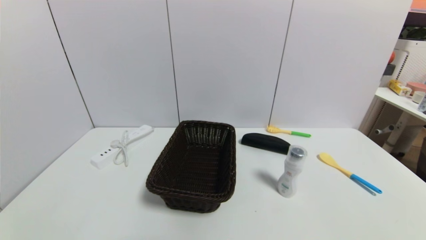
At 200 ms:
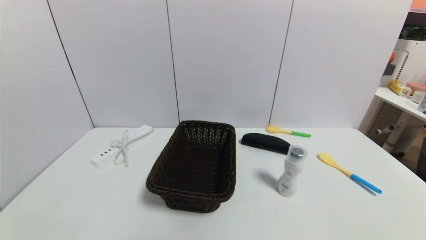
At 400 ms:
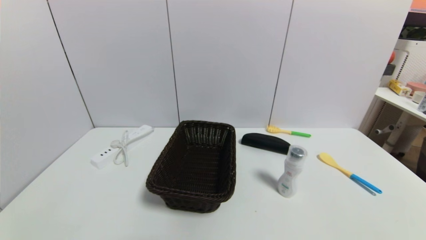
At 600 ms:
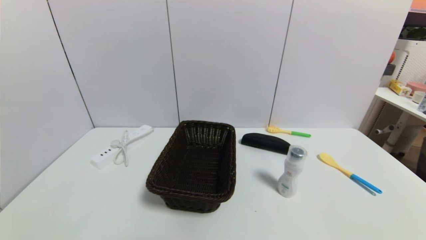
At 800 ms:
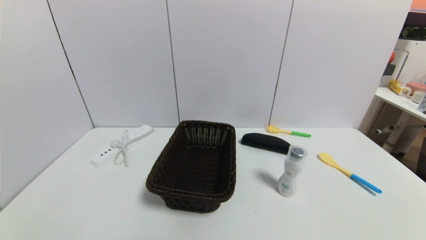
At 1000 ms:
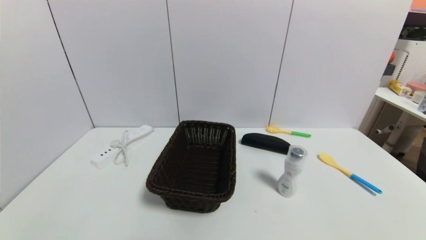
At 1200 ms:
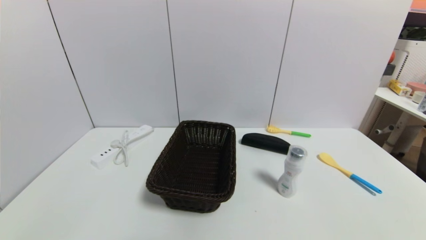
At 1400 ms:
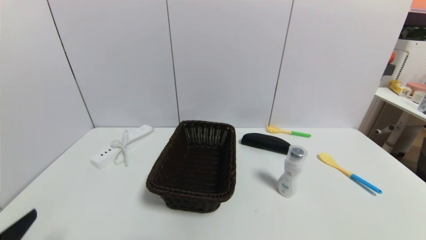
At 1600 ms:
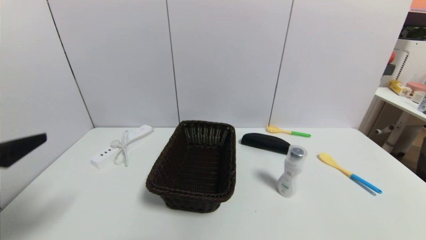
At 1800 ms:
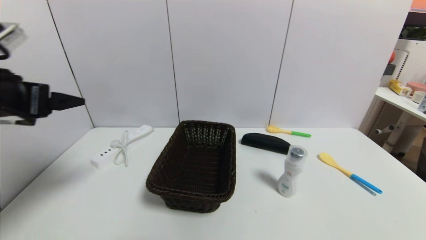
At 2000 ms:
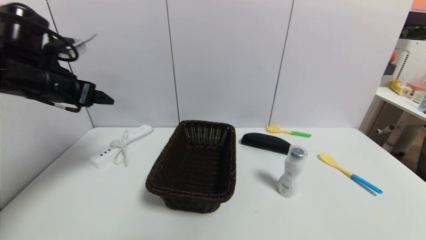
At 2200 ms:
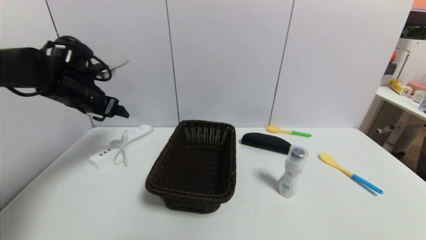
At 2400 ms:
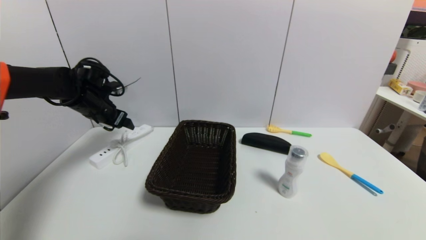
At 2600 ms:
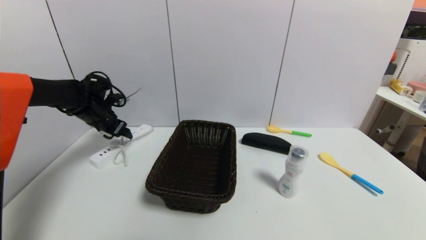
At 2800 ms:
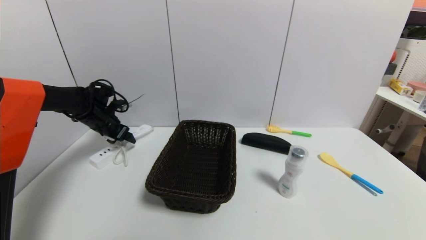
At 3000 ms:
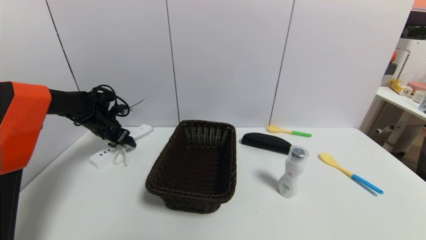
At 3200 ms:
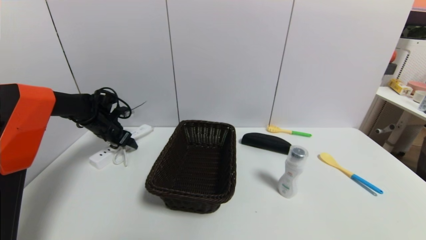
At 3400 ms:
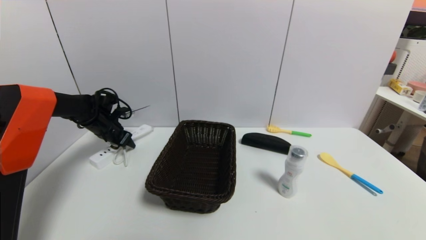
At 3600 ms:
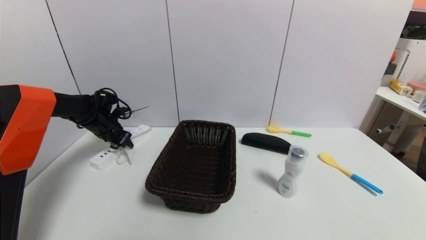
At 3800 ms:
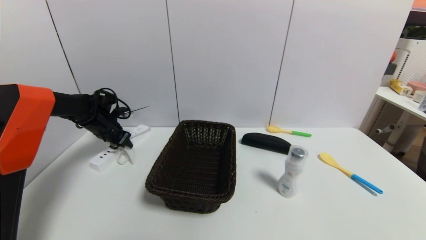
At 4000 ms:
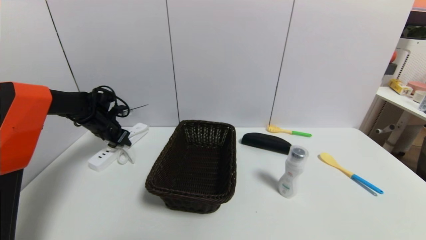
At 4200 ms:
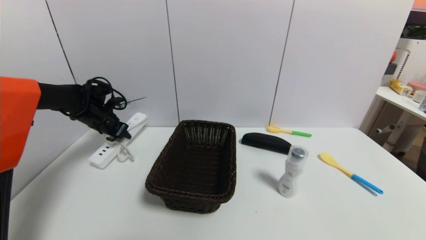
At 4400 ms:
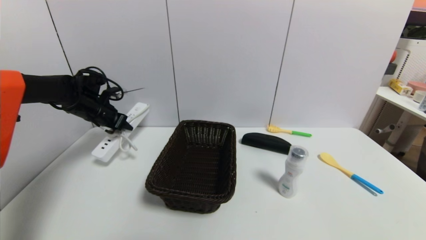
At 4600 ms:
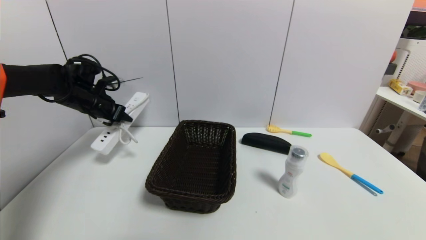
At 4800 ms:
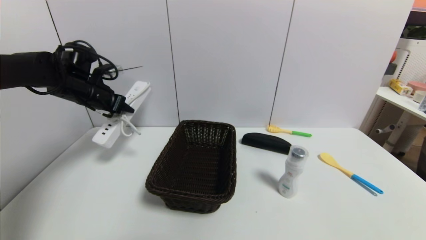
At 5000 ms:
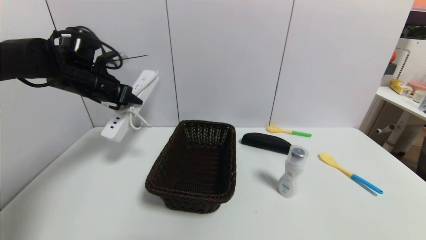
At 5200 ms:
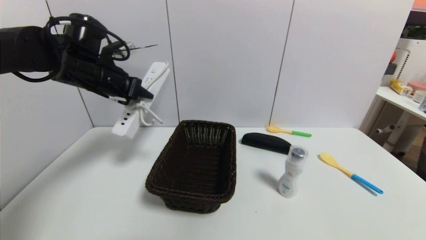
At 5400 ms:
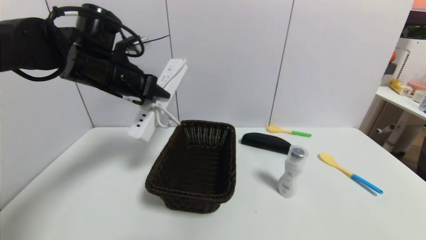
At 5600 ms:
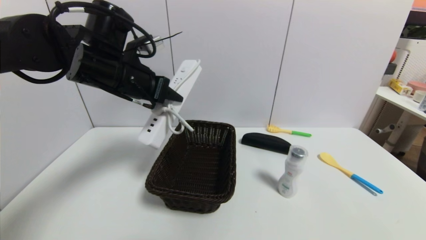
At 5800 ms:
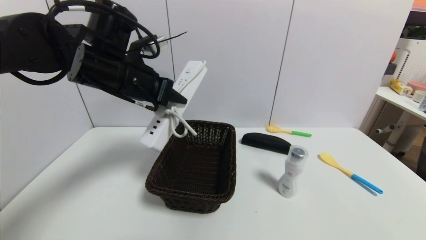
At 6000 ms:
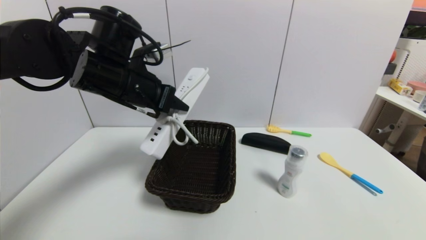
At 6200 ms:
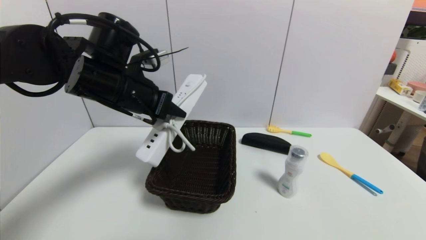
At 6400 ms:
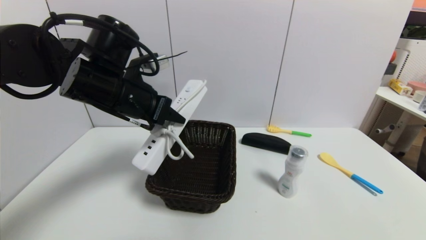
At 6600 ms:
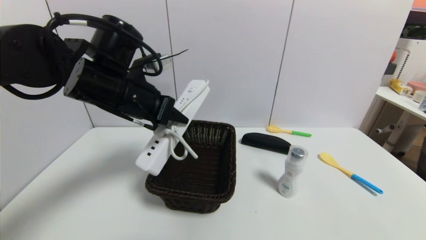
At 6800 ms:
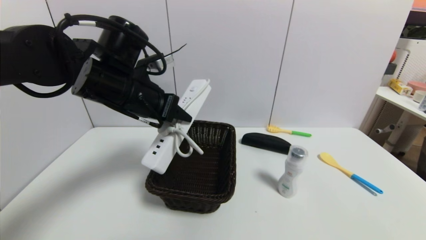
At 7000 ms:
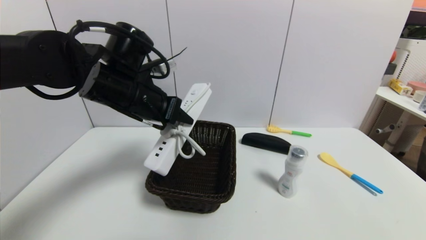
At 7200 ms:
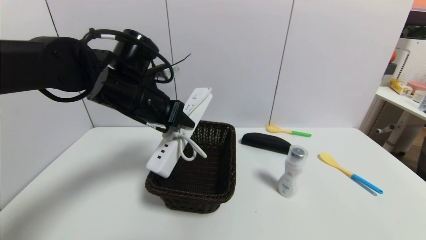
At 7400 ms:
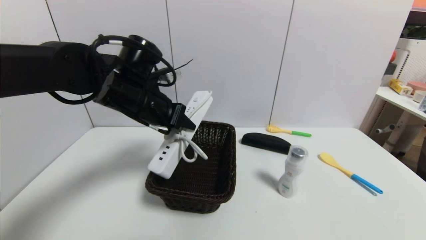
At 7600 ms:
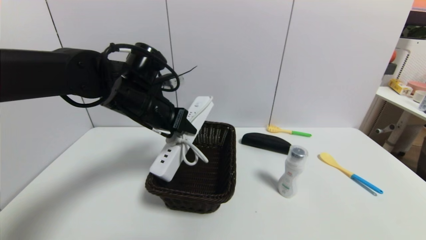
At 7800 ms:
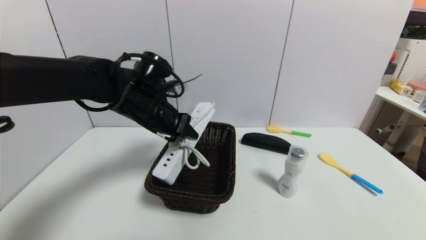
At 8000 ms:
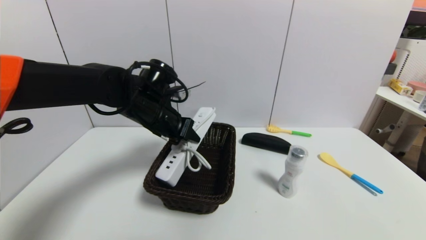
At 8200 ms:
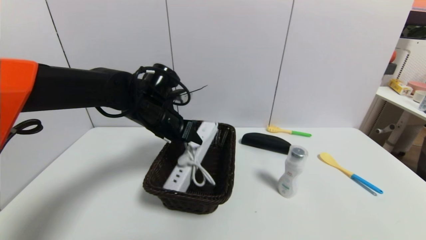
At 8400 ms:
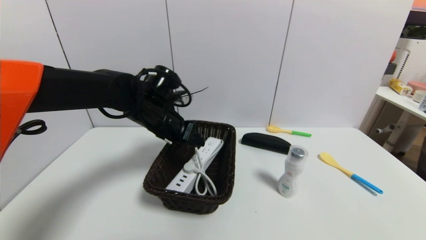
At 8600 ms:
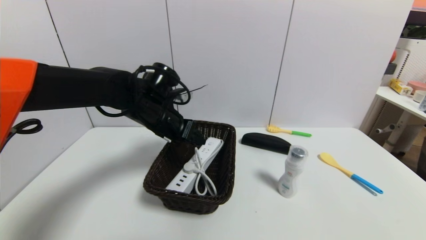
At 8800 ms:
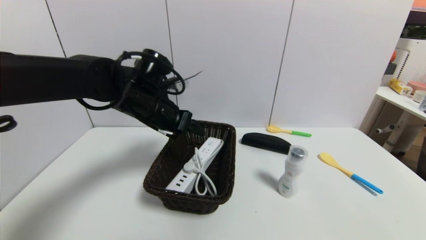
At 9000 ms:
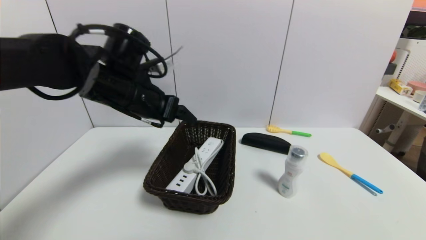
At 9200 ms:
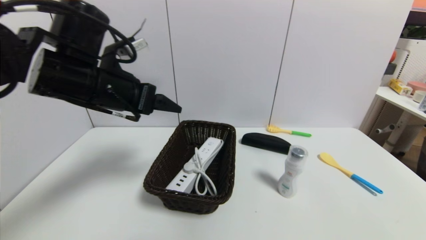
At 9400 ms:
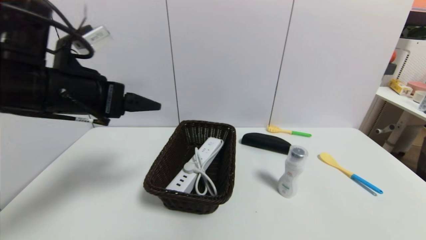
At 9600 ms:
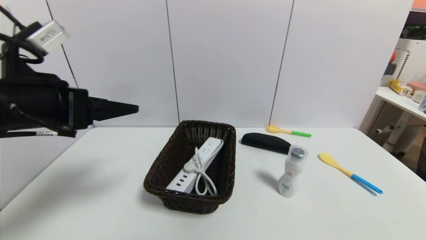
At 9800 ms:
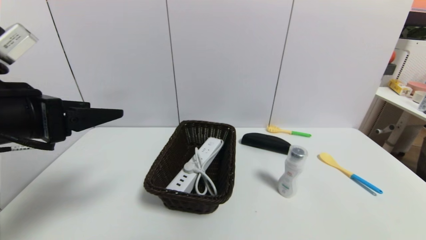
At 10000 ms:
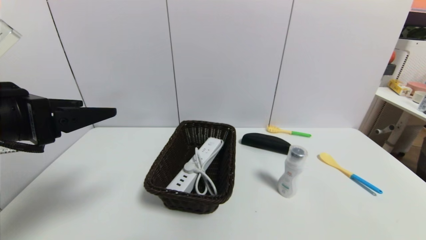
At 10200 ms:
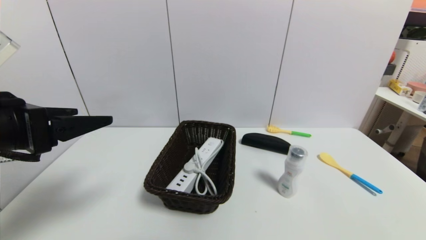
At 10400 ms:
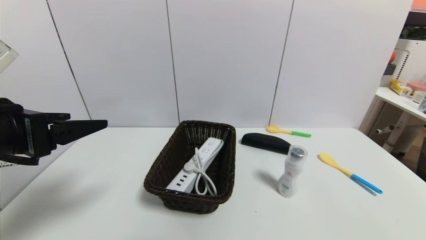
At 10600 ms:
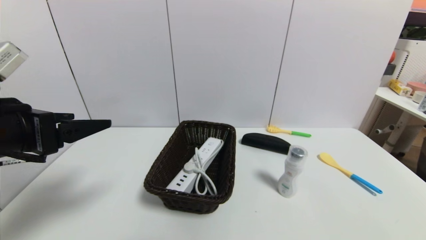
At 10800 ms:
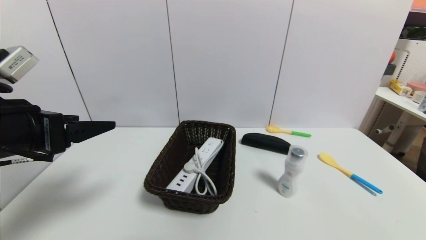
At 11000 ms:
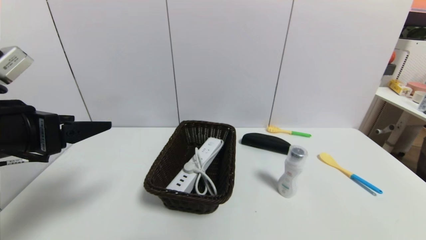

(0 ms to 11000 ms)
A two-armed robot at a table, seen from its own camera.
Task of the whole recording: use a gripper to pick the target object and place on the brown basket.
Step, 0 ms - 3800 ms: Grasp the plugboard with the left gripper.
Step, 4000 ms - 8600 ms: Place the plugboard into the basket with the left gripper.
0 ms - 1600 ms: The left gripper goes roughly 25 cm upward and forward.
1600 ms - 3200 ms: The left gripper shifts roughly 40 cm forward and downward.
3200 ms - 4800 ms: The left gripper travels upward and backward by roughly 15 cm, and closes up.
4800 ms - 6200 ms: The left gripper shifts some 15 cm to the right and backward.
6200 ms - 7800 ms: The left gripper shifts about 5 cm downward.
7800 ms - 9400 ms: The left gripper travels backward, to the left and upward by about 15 cm, and opens up.
9400 ms - 11000 ms: The left gripper travels backward by roughly 5 cm.

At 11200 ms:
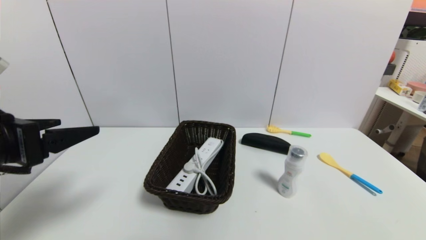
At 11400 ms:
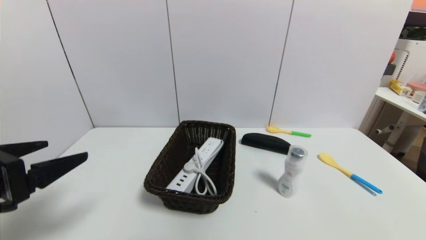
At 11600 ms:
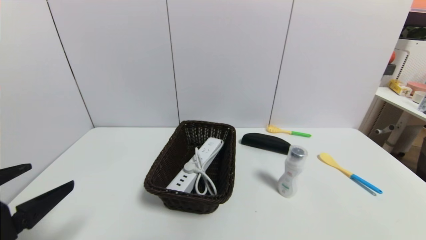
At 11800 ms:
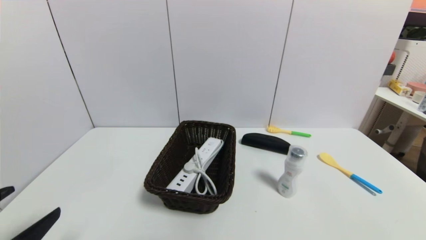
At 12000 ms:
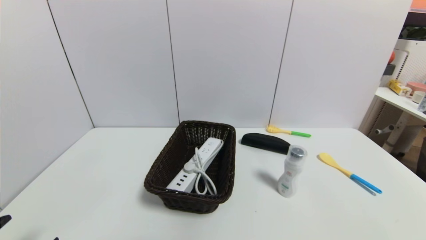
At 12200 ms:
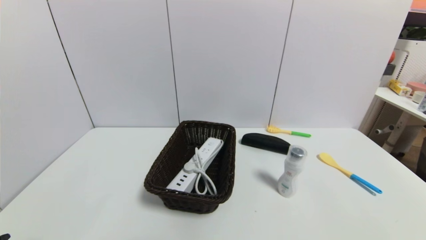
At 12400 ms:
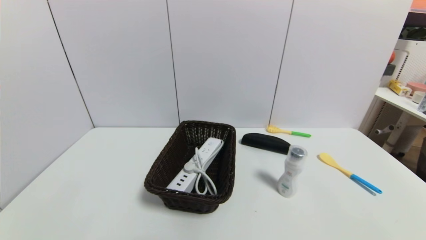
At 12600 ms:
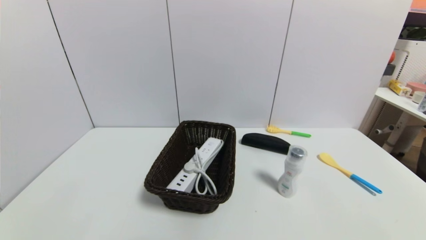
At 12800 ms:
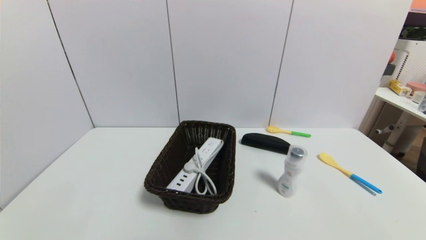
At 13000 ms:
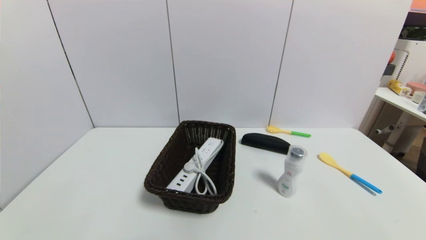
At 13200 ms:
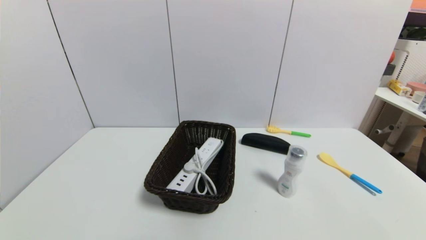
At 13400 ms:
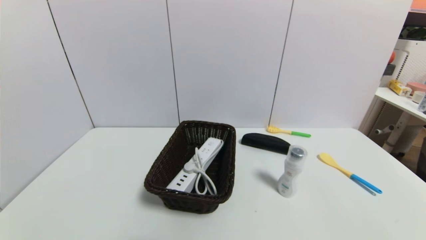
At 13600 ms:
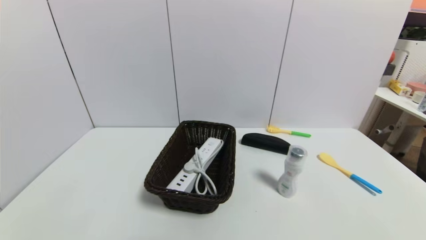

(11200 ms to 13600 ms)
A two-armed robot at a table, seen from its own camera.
Task of the whole recording: use a gripper to pick the target object and place on the brown basket.
11200 ms - 12400 ms: The left gripper goes some 25 cm downward and backward.

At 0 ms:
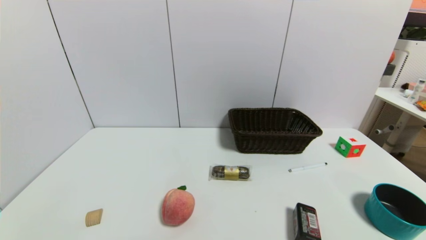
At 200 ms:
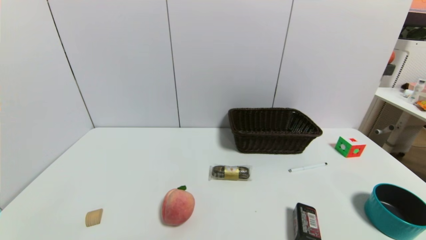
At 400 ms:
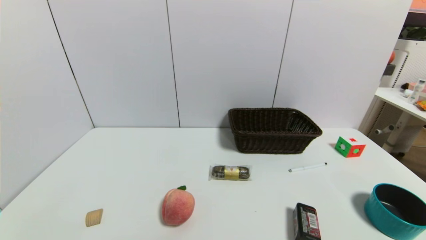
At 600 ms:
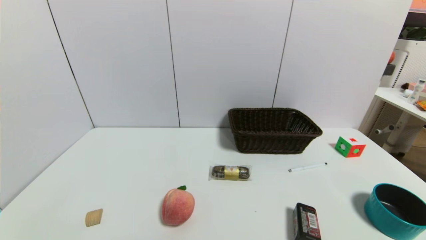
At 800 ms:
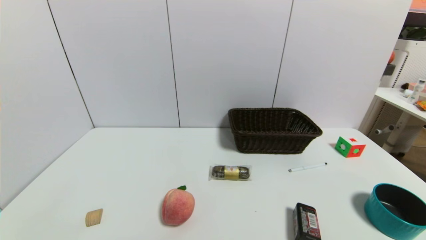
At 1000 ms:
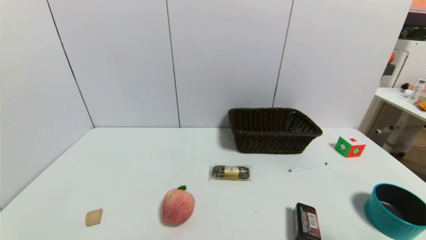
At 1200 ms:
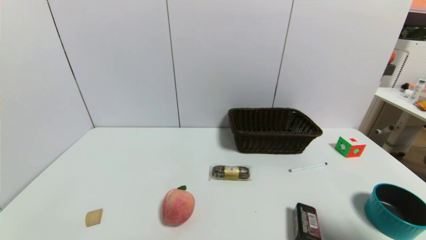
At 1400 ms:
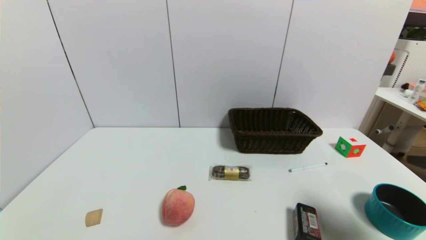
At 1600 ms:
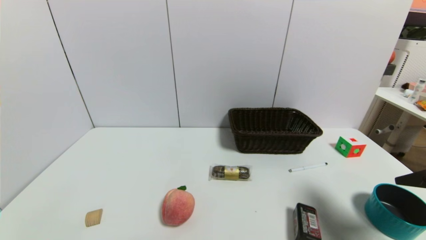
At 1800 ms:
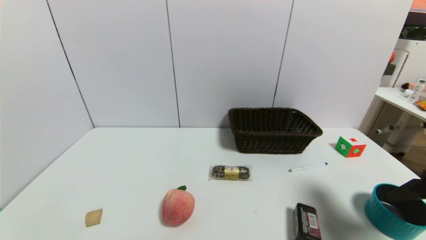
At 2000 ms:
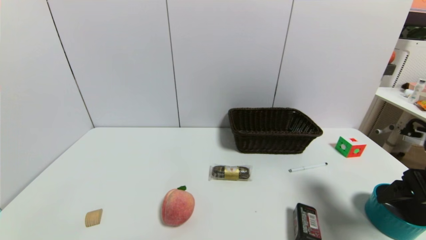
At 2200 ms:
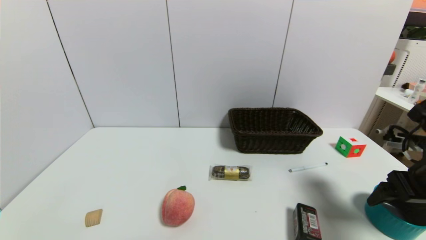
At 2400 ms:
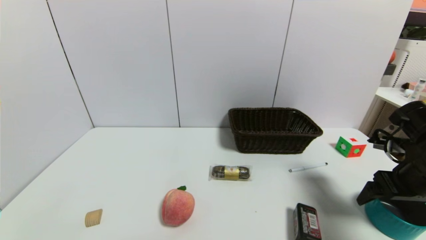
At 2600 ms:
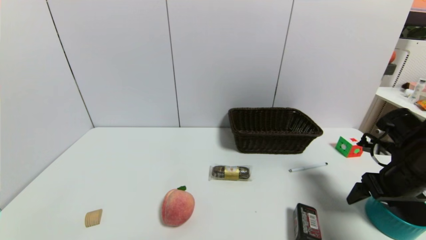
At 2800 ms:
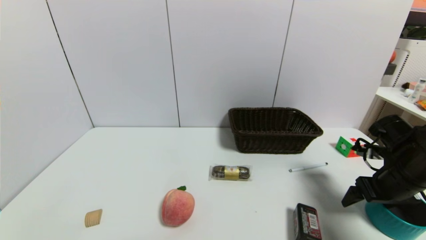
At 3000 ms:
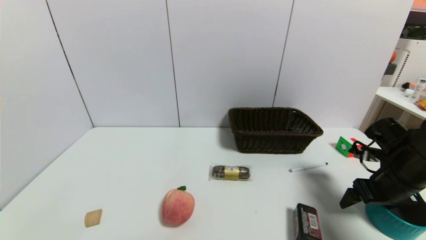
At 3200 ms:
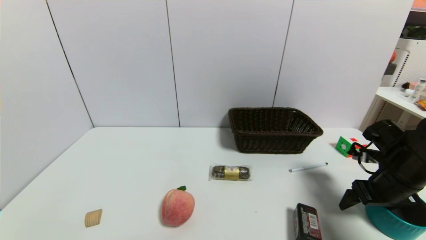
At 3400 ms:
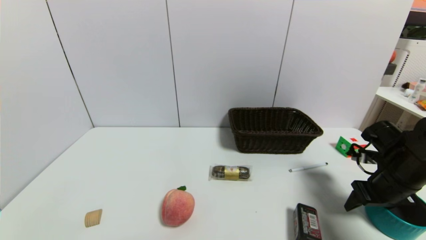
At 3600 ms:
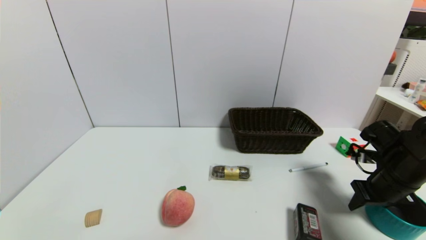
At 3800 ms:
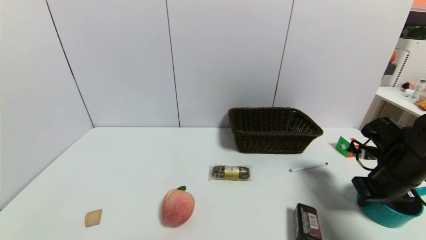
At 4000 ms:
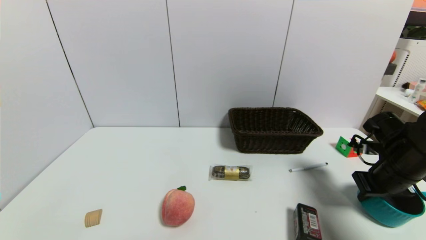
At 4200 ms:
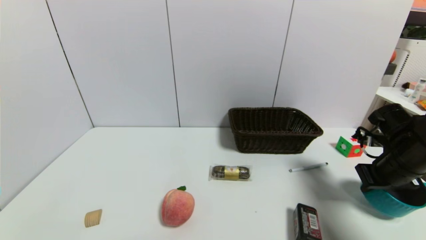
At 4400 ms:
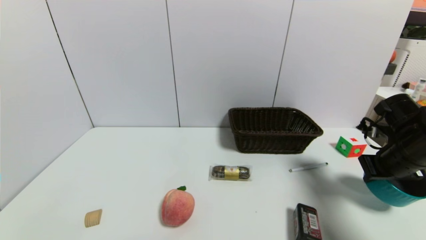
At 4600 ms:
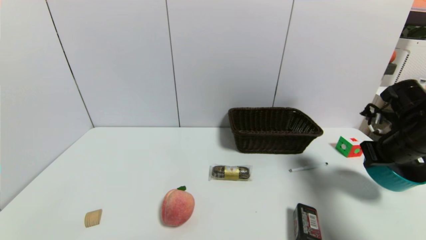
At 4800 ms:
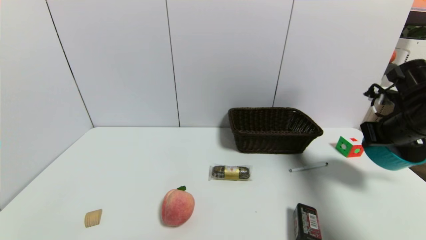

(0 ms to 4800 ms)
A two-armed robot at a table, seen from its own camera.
Task of the whole recording: use a gripper to pick the target object and place on the brown basket.
Step, 0 ms - 4000 ms: Grasp the blue pot with the right gripper.
0 ms - 1600 ms: The right gripper moves upward and forward, roughly 25 cm.
1600 ms - 3200 ms: The right gripper heads downward and forward, covering some 15 cm.
3200 ms - 4800 ms: The right gripper heads upward, covering about 10 cm, and closes.
